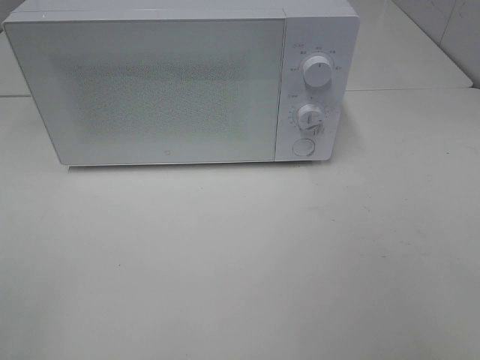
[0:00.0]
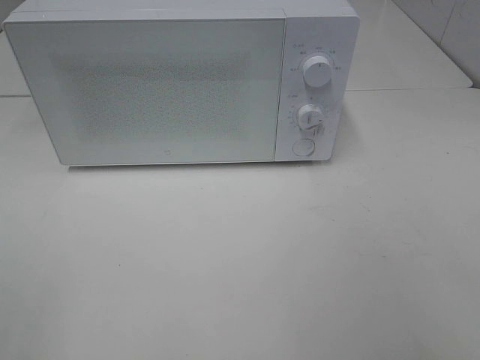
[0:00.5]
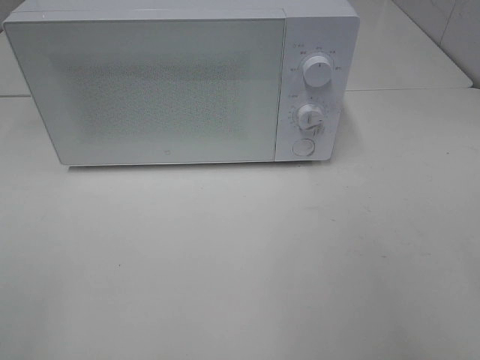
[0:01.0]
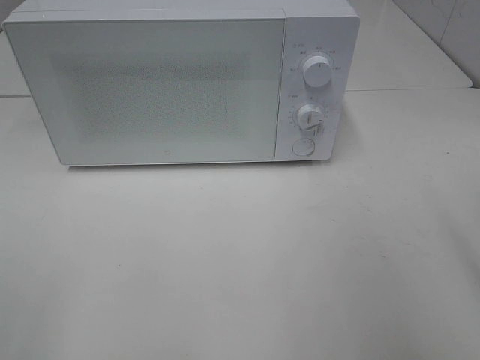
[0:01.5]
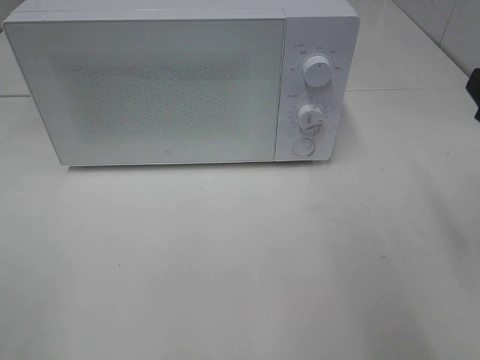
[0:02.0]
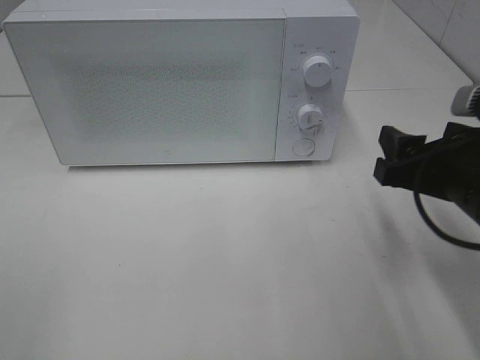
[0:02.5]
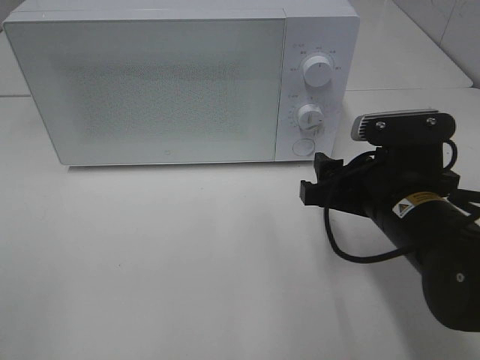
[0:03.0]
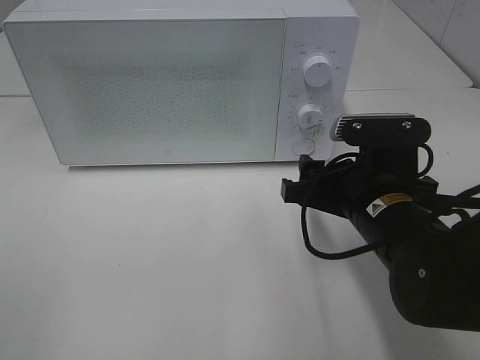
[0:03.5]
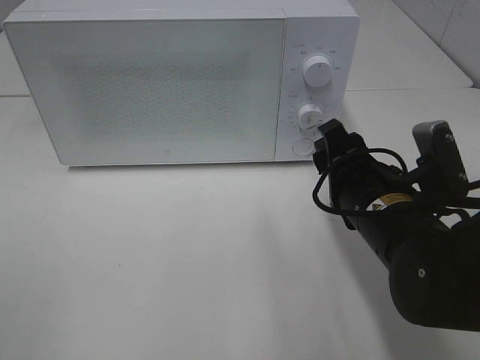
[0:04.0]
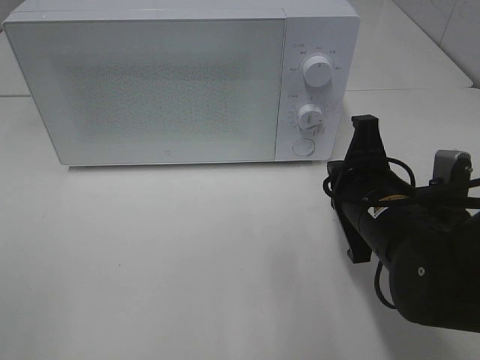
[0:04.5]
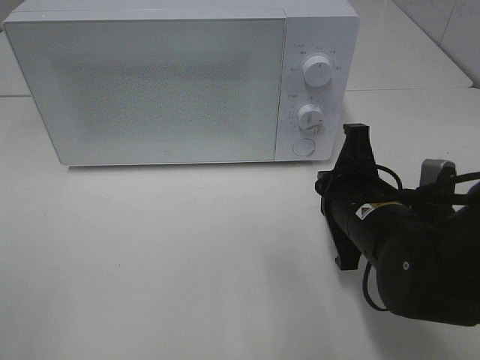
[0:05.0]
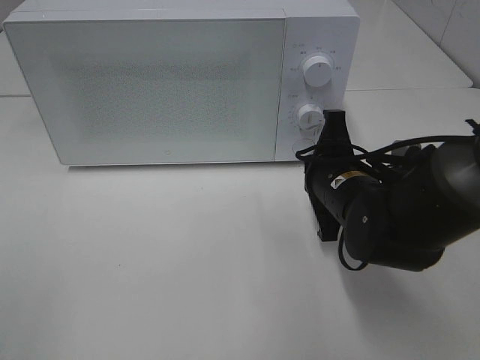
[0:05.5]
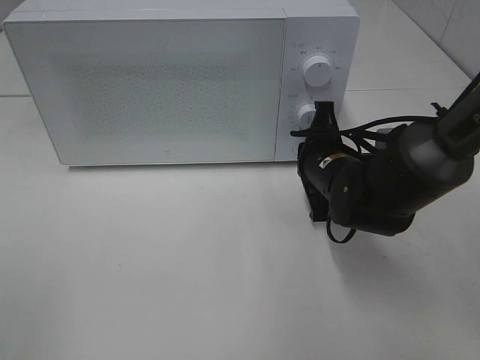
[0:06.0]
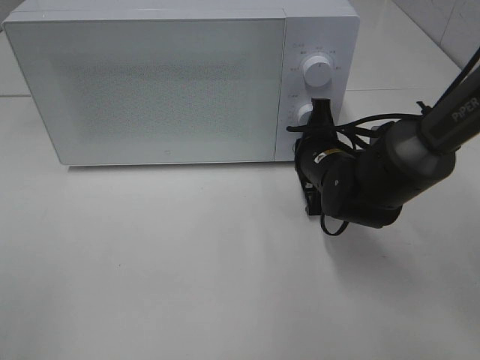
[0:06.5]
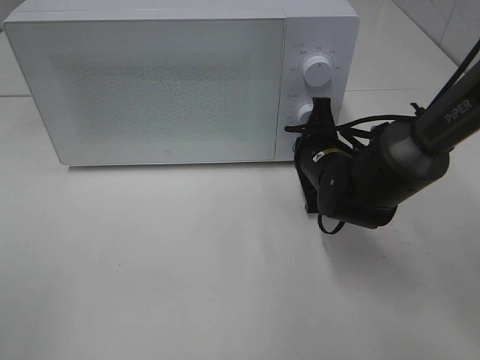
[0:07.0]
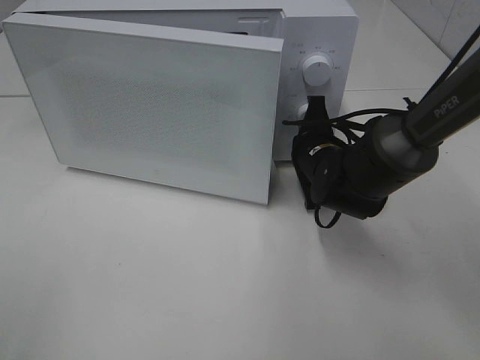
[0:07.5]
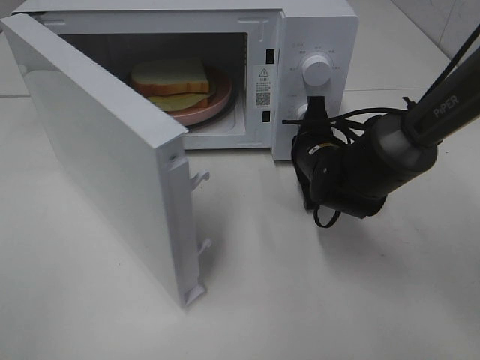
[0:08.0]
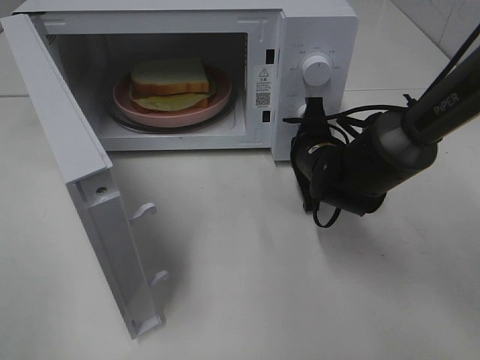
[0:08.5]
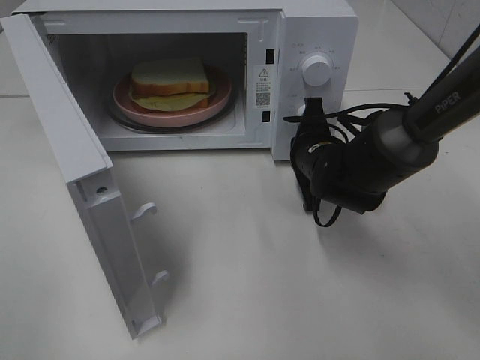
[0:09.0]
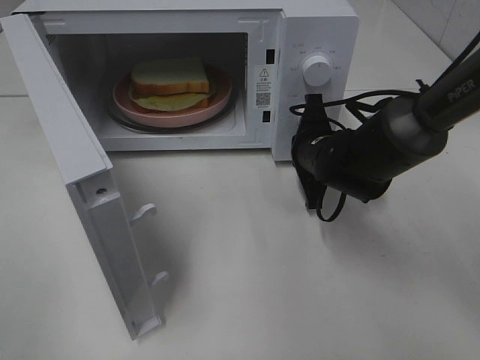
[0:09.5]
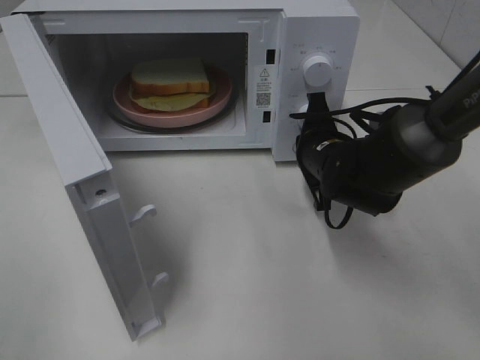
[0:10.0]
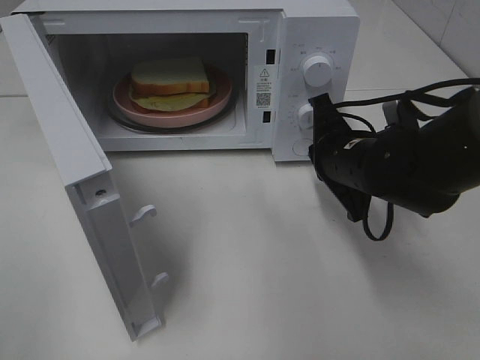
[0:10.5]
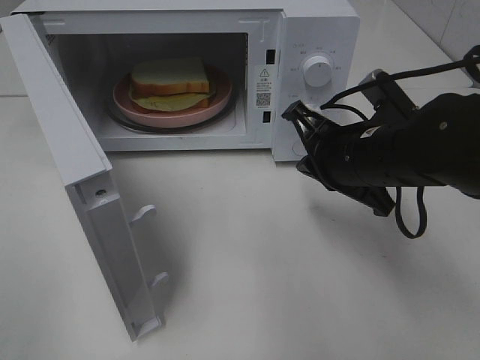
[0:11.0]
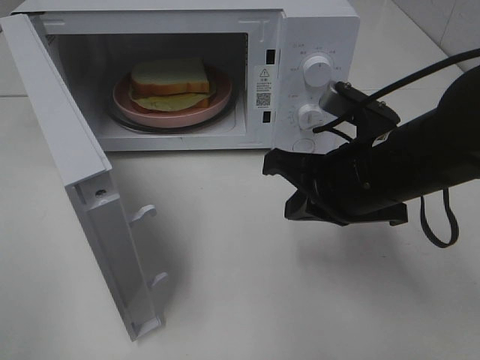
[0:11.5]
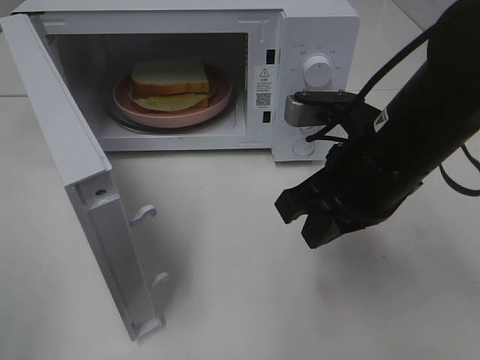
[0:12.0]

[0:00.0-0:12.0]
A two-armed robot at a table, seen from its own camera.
Task of the whole recording: Heat Sandwich.
Step, 0:00.0 to 0:10.5: Right hand: press the switch.
0:02.0 to 0:04.0: The right gripper travels to the left and downward by approximately 15 cm.
0:04.0 to 0:06.0: The right gripper heads forward, covering some 10 cm, and closes its fingers.
0:10.0 to 0:12.0: The right gripper goes about 15 cm backward and upward.

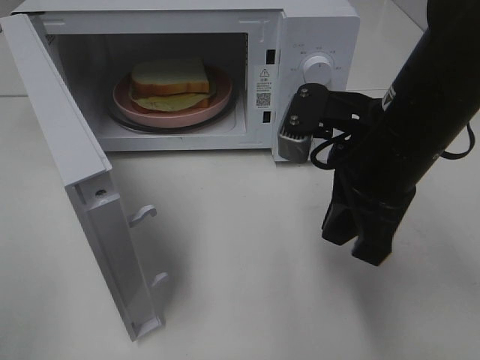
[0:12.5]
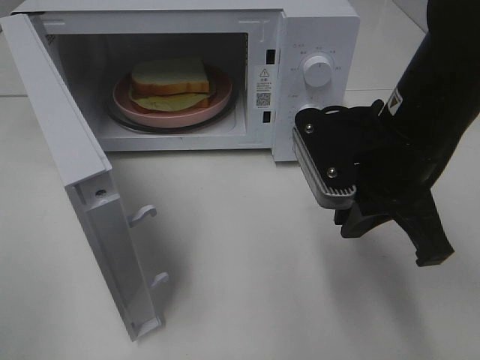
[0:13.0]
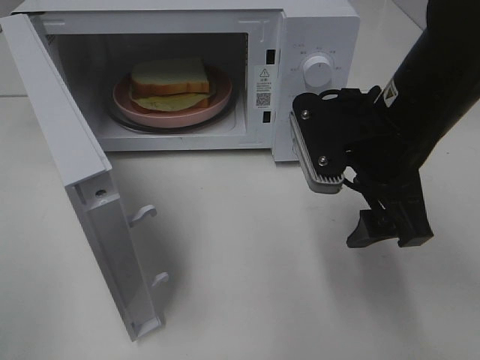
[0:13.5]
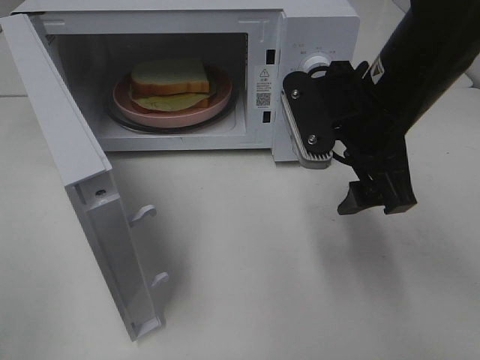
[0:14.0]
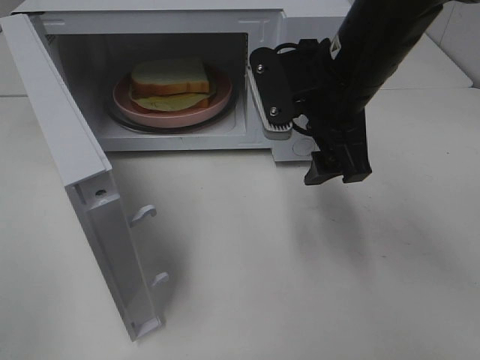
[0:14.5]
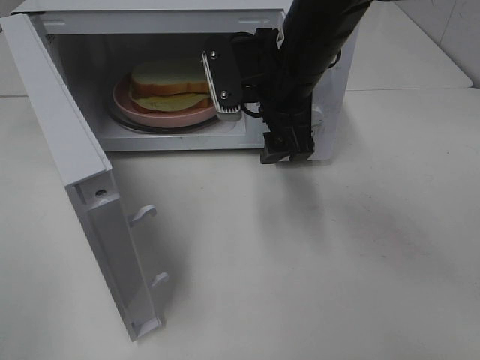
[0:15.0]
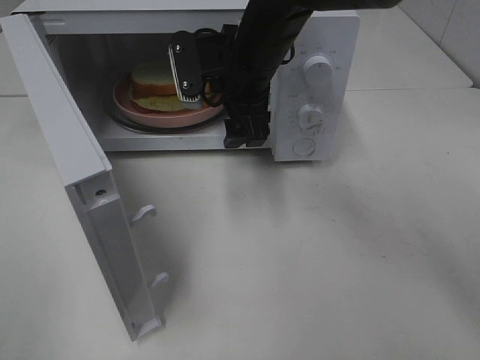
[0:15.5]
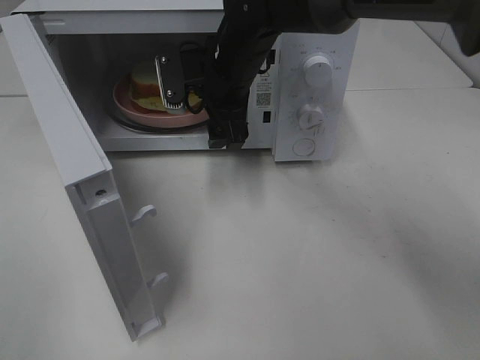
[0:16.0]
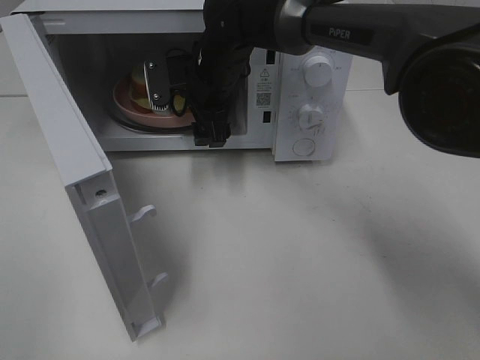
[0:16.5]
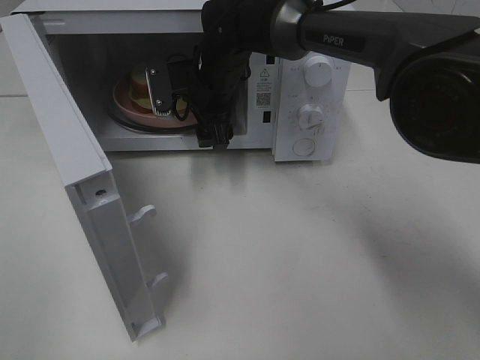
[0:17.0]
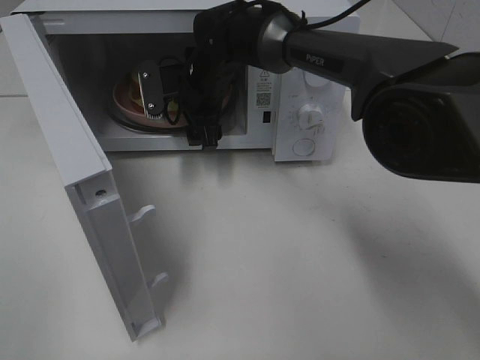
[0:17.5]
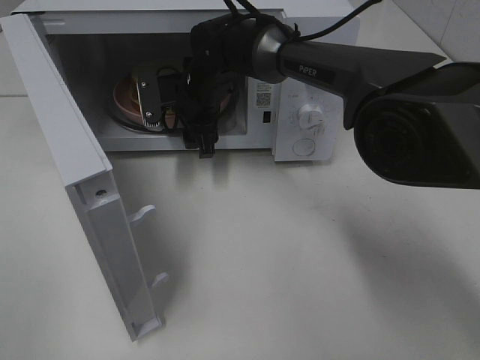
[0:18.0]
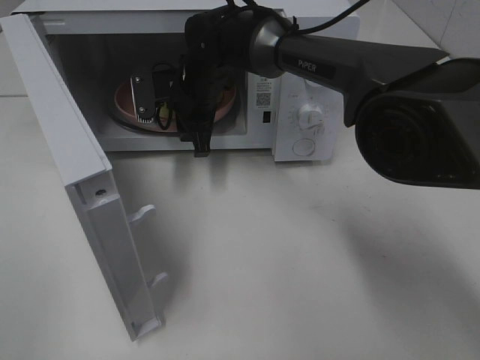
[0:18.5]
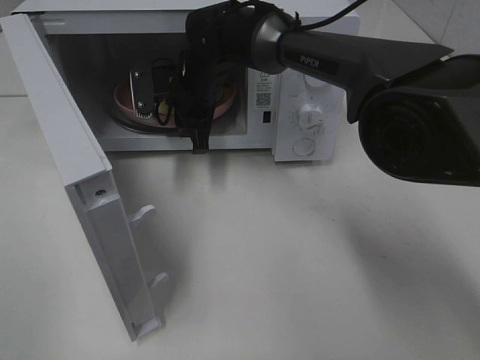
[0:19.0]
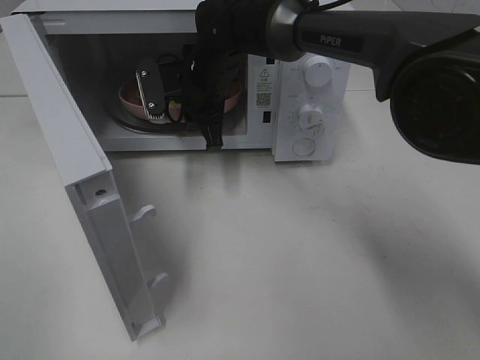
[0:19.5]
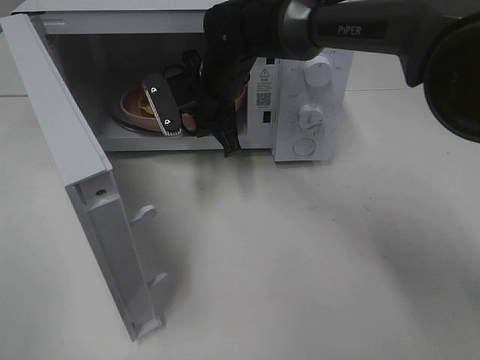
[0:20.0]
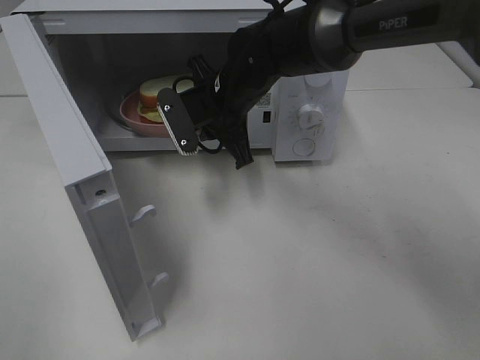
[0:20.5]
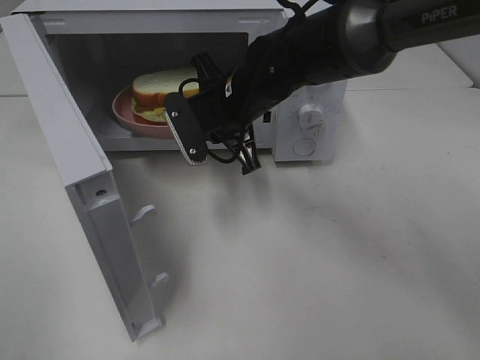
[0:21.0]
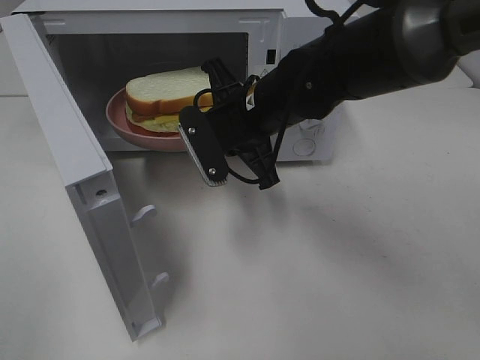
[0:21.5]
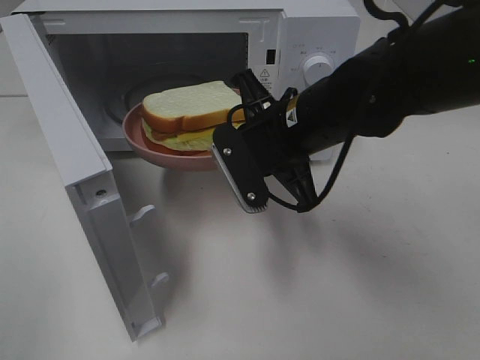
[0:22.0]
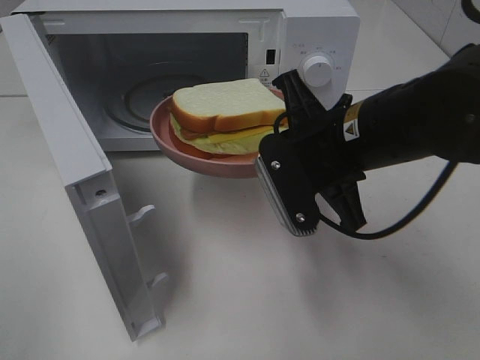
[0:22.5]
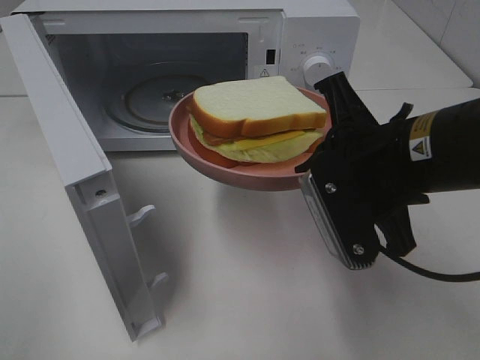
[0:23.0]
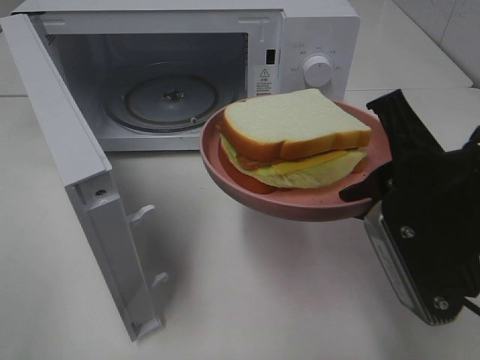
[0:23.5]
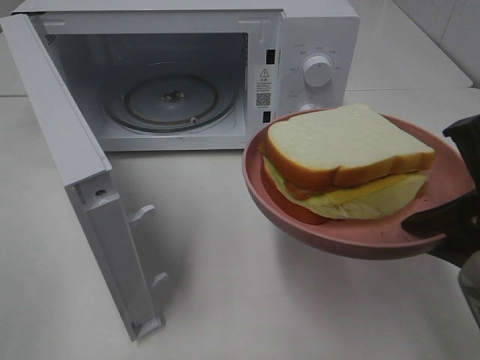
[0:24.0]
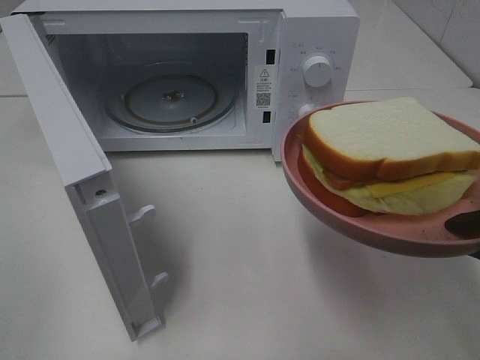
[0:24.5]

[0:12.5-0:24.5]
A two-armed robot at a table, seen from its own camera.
Task of the whole recording: Heat Sandwich.
Step, 0:12.5 to 0:19.0: Right hand: grab the plate with the sandwich.
0:12.5 to 0:14.5: The right gripper travels forward by roughly 5 cm, and opens.
0:14.5 to 0:16.5: The right gripper travels forward, to the left and downward by approximately 20 cm.
0:16.5 to 0:18.5: The right gripper closes its fingers.
0:18.5 to 0:20.5: The right gripper heads backward, covering some 5 cm.
0:20.5 to 0:22.5: The right gripper travels backward and to the right by roughly 20 cm.
0:22.5 to 0:24.5: The right gripper heads backward and to the right, covering about 20 cm.

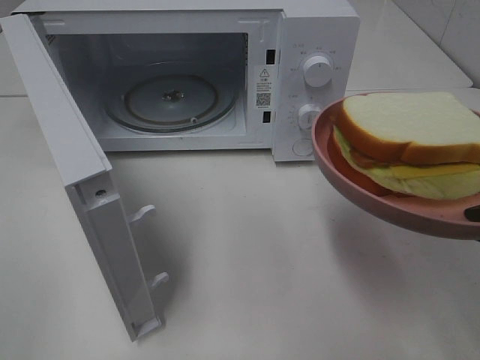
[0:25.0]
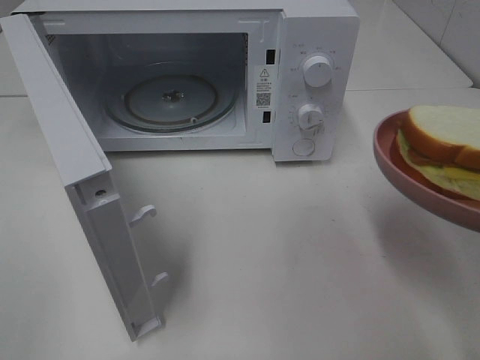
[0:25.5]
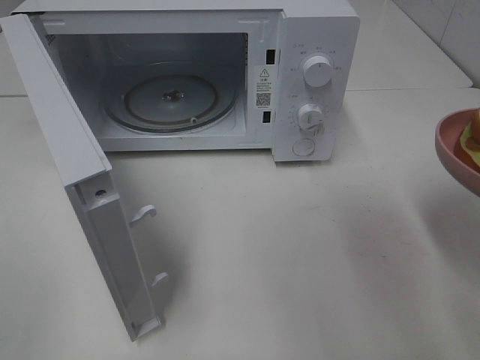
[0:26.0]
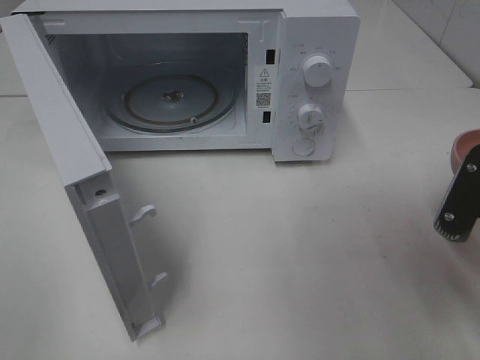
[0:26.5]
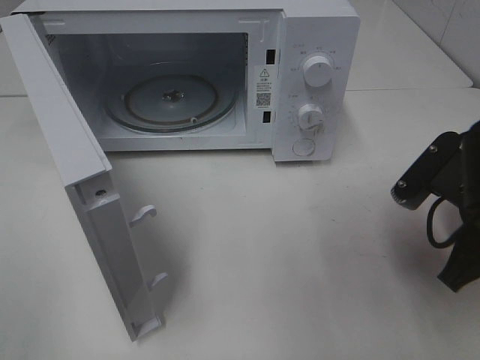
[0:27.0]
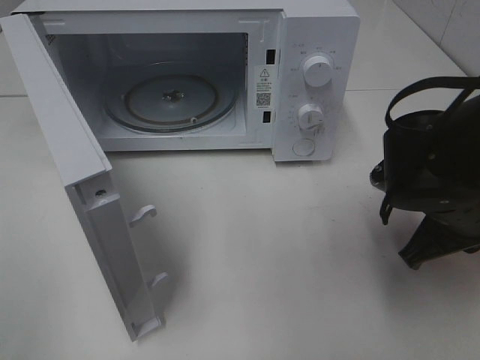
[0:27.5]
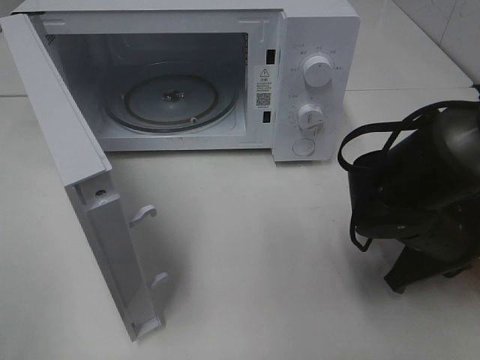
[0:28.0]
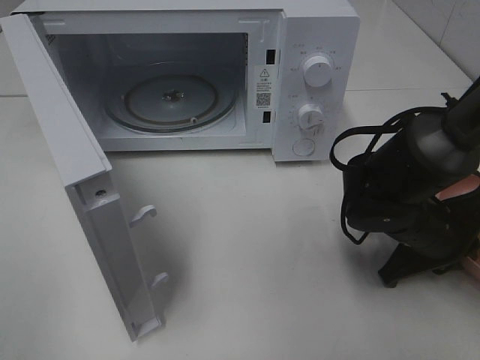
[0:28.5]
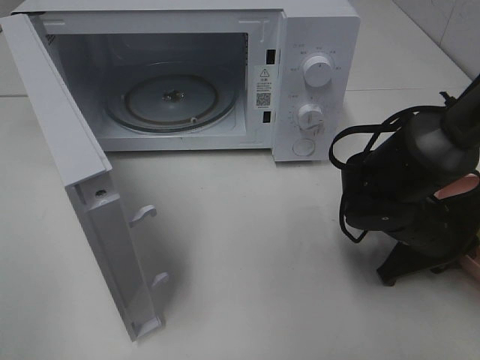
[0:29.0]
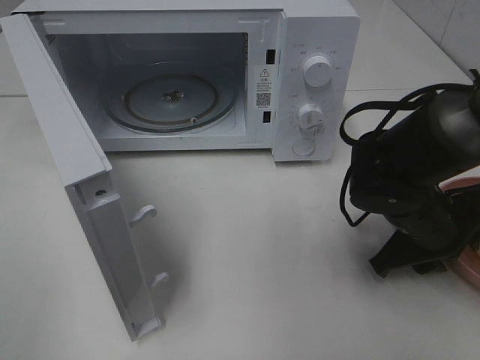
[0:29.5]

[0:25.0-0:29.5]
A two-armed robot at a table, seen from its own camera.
Task of the whole recording: Heat Sandwich.
0:25.0 to 0:27.0: The right gripper shifts approximately 10 cm forward and downward.
0:27.0 to 0:29.5: The right gripper is displaced downward and forward by some 10 cm.
